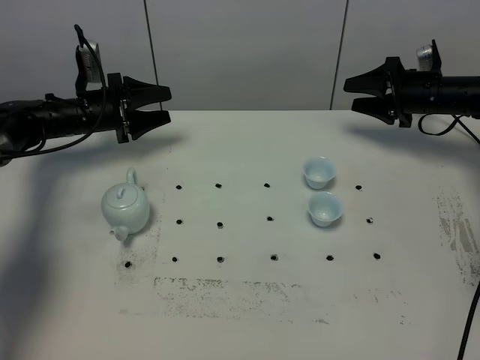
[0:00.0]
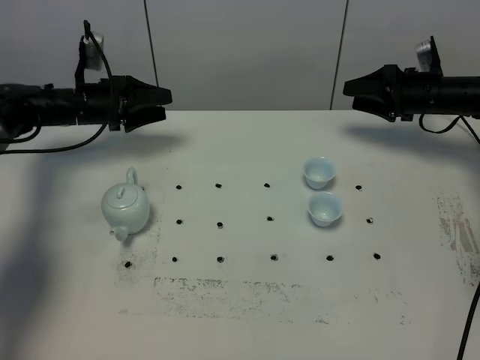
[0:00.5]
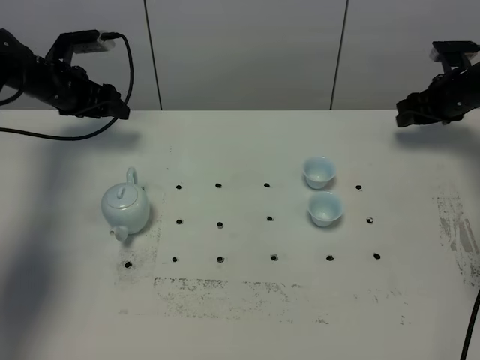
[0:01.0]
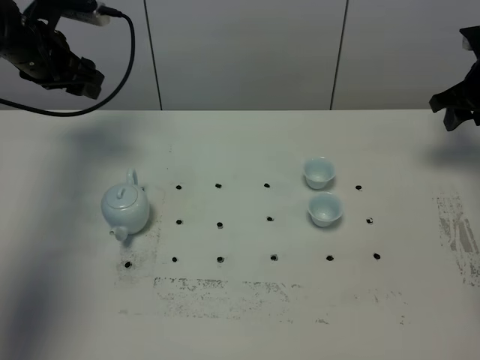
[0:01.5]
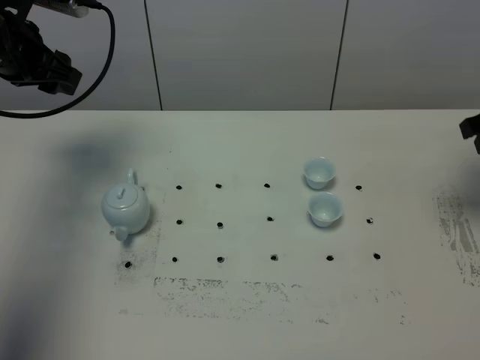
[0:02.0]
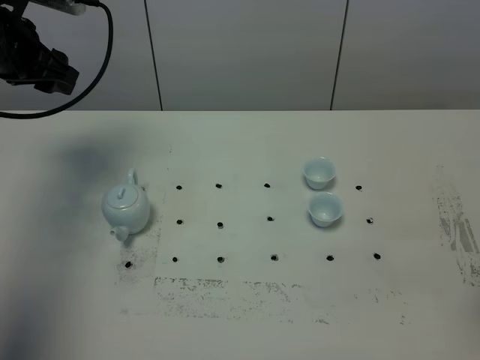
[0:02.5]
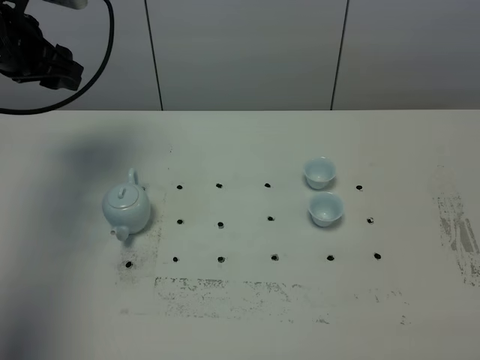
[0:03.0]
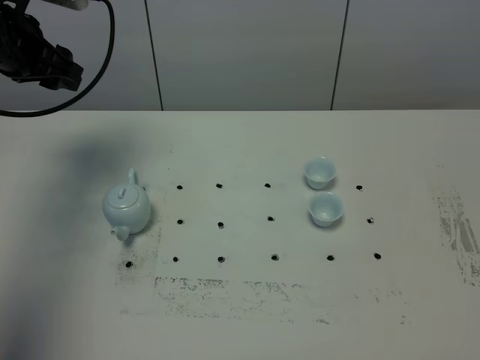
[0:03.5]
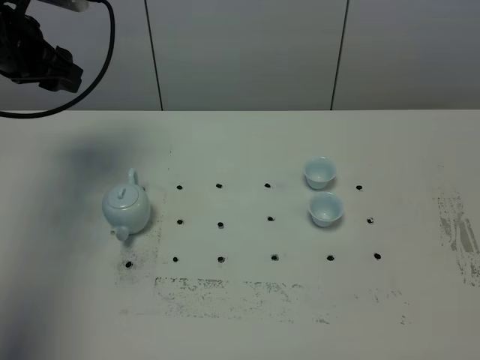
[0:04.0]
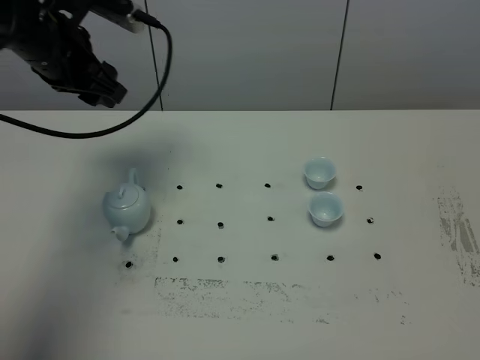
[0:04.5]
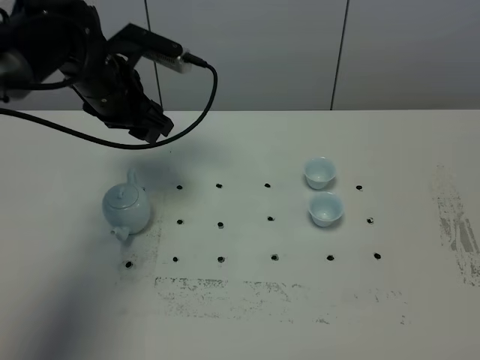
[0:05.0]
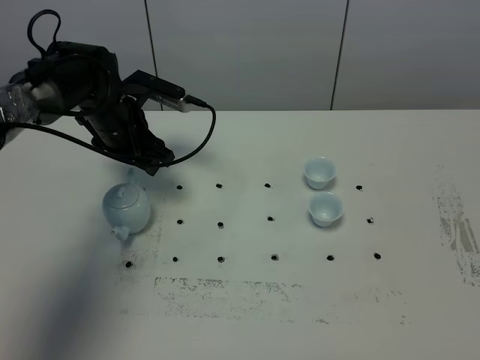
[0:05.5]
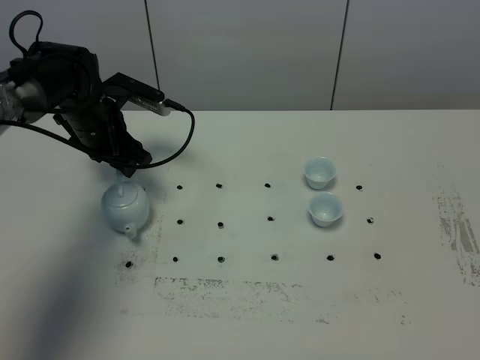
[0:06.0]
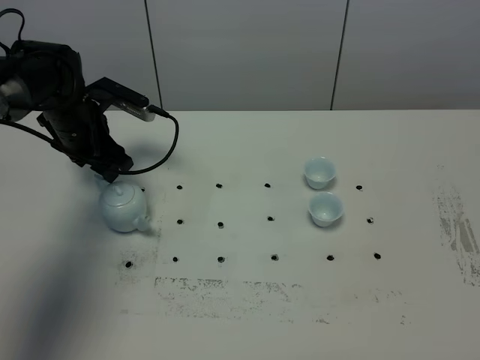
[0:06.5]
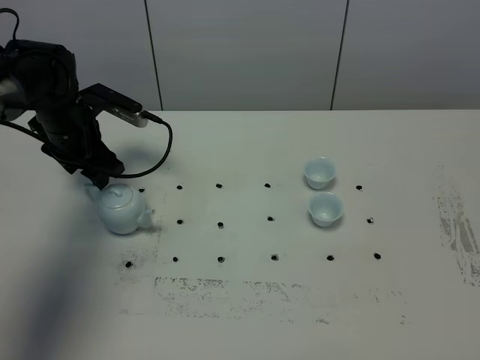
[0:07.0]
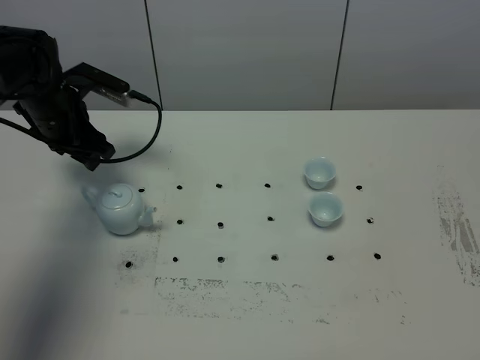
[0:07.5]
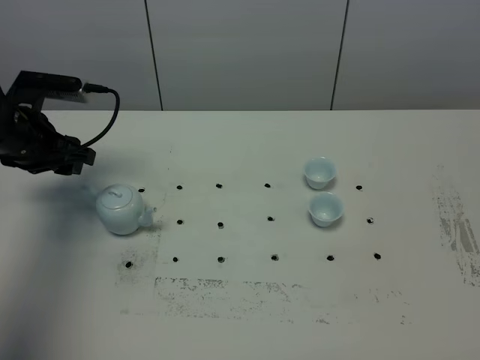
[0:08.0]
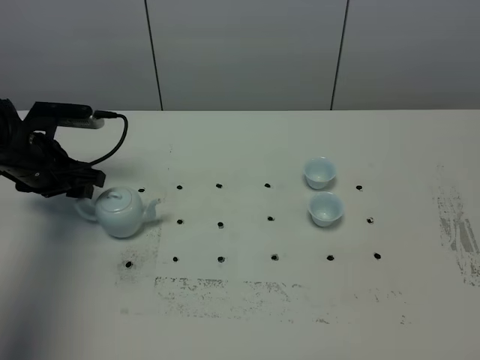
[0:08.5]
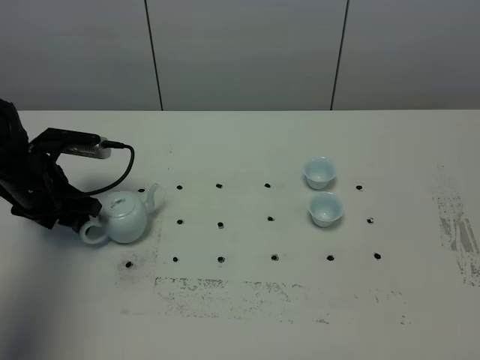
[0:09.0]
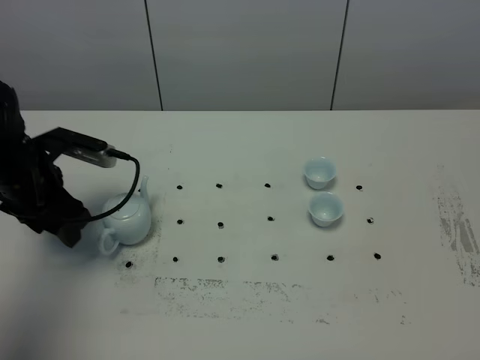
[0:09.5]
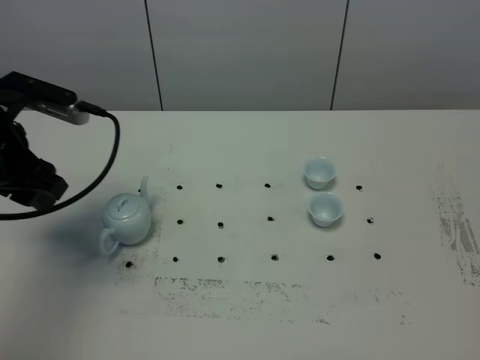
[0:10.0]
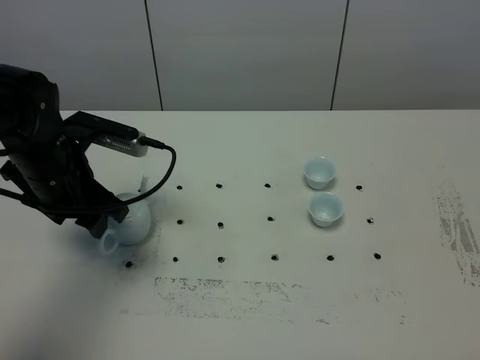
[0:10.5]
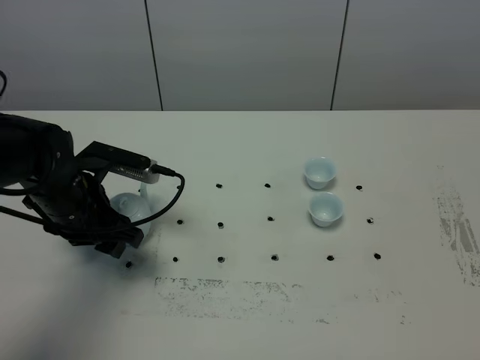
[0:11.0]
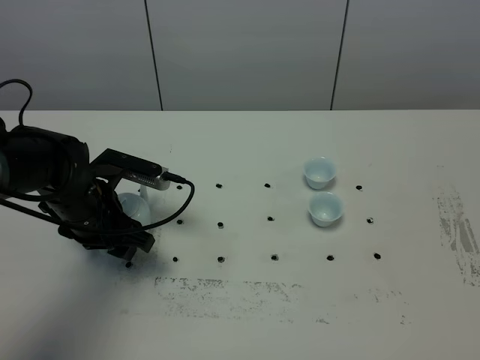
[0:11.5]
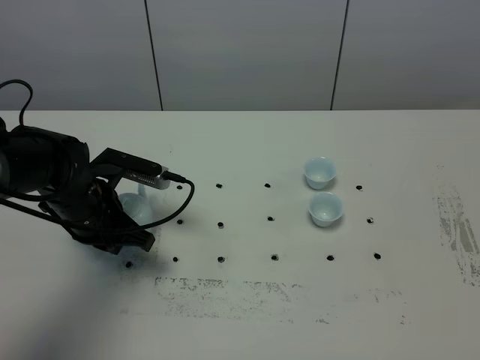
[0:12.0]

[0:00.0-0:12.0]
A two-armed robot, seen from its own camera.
Task of the whole recording: grasp the blue porcelain teapot and pour the tea into the two blue porcelain teacups one by one, put the blue porcelain teapot back in its original place.
0:00.0 to 0:02.0: The right gripper goes roughly 25 cm backward and upward, and closes its fingers, while the left gripper is displaced upward and backward by some 20 cm.
0:02.0 to 0:04.0: The right gripper goes approximately 40 cm backward, and closes.
0:04.0 to 0:06.0: The left gripper is displaced downward and to the right by approximately 15 cm.
0:06.0 to 0:08.0: The left gripper heads to the left and backward, covering approximately 10 cm.
0:08.0 to 0:10.0: The left gripper goes some 10 cm backward and upward.
0:10.0 to 0:12.0: The left gripper is displaced downward and to the right by about 15 cm, and closes.

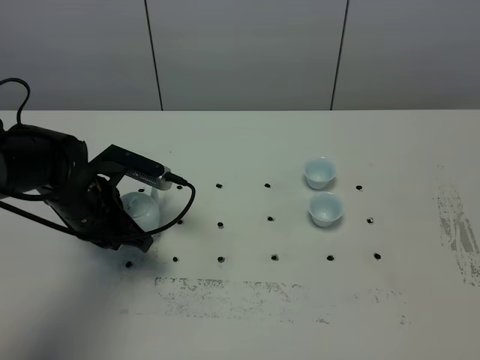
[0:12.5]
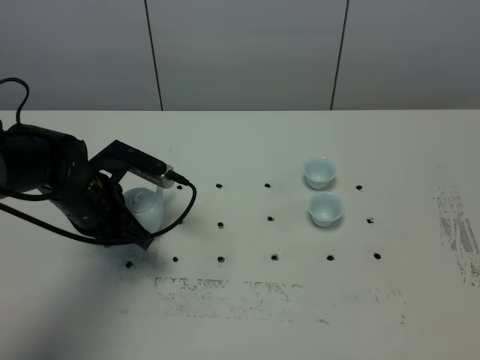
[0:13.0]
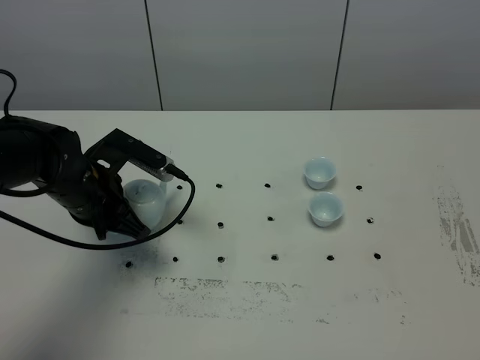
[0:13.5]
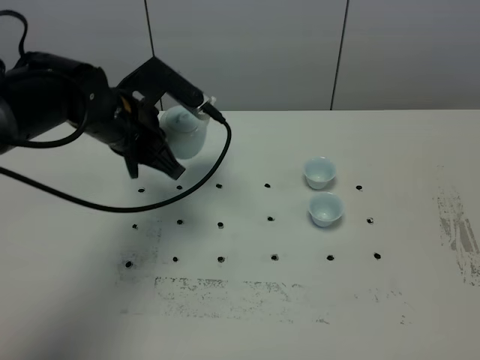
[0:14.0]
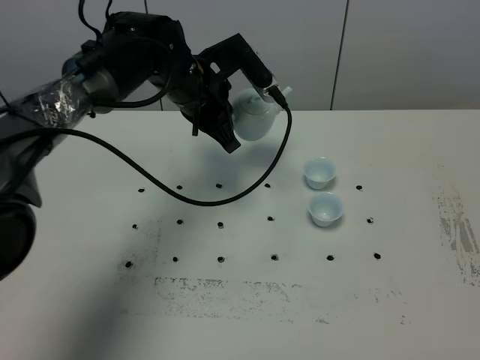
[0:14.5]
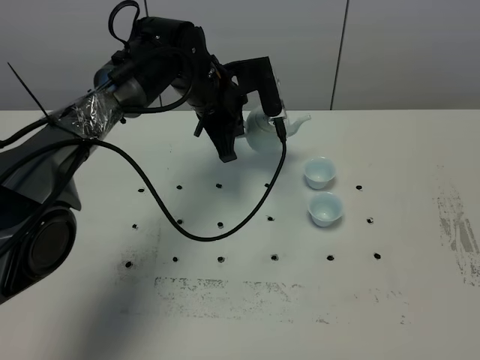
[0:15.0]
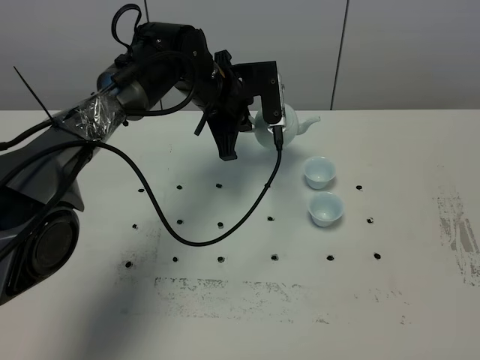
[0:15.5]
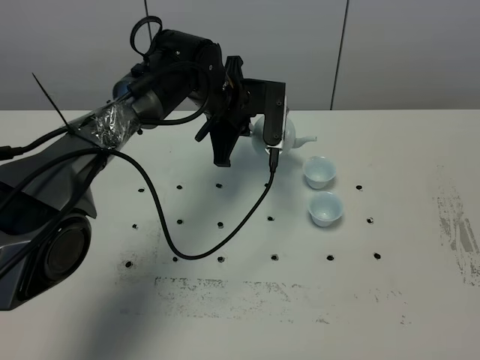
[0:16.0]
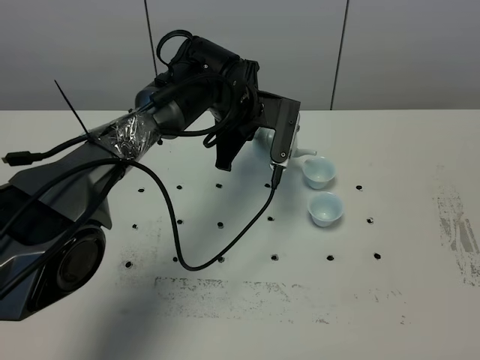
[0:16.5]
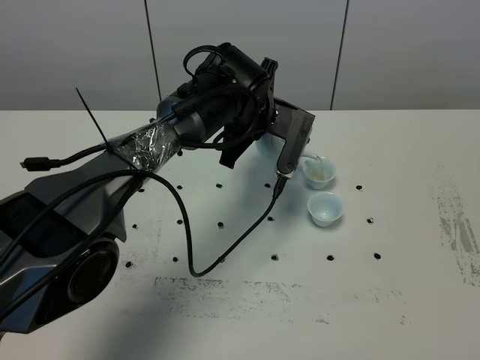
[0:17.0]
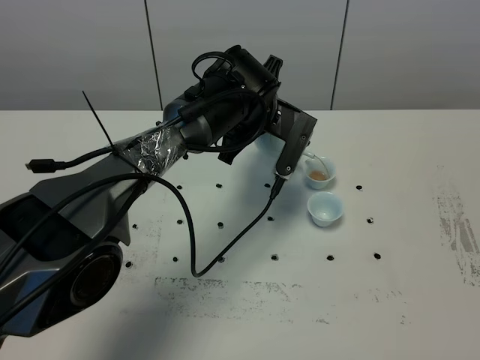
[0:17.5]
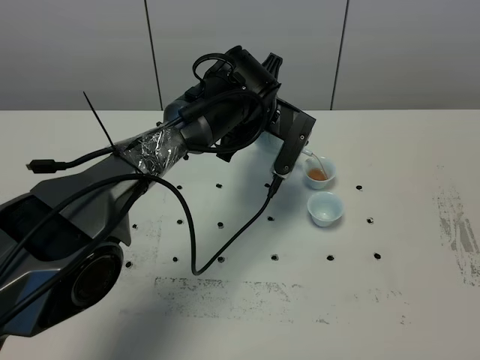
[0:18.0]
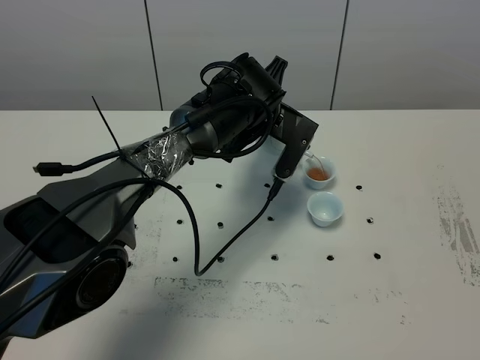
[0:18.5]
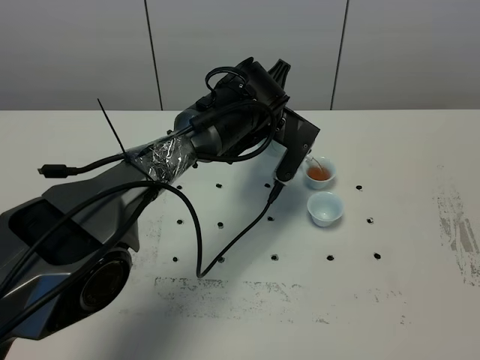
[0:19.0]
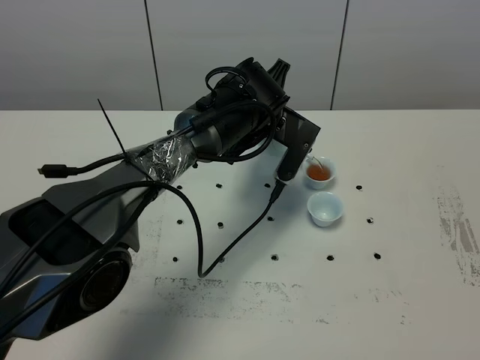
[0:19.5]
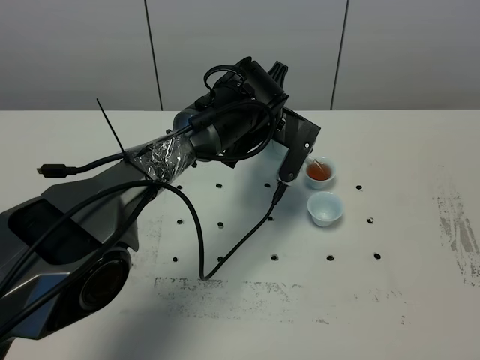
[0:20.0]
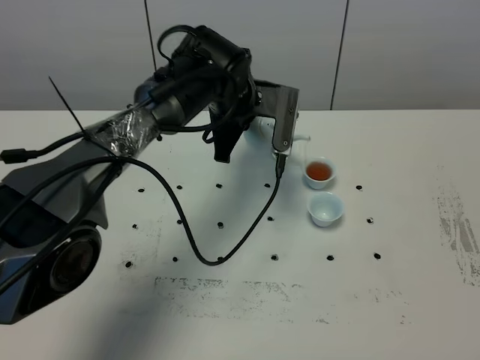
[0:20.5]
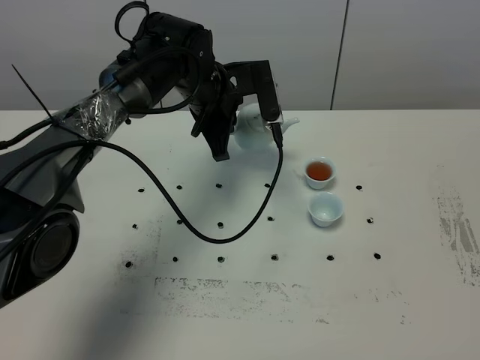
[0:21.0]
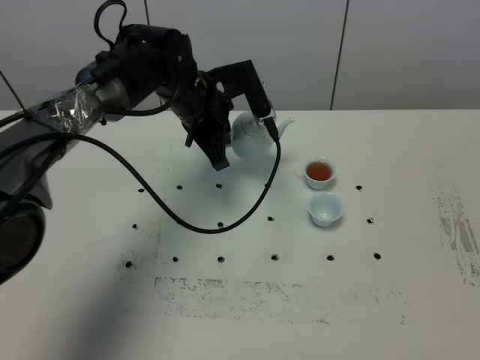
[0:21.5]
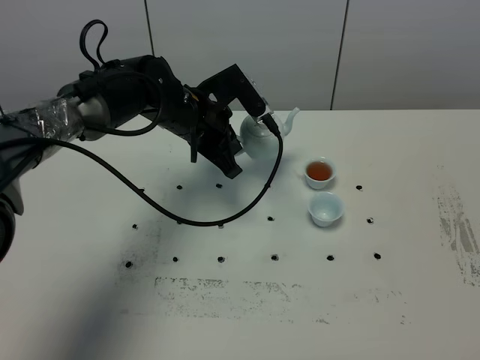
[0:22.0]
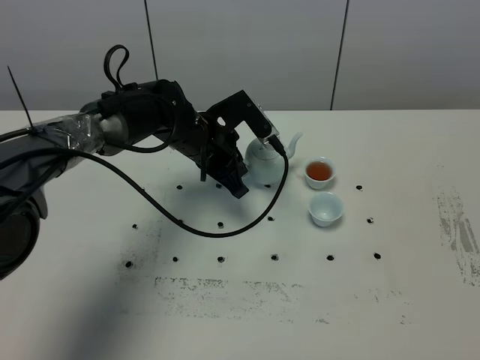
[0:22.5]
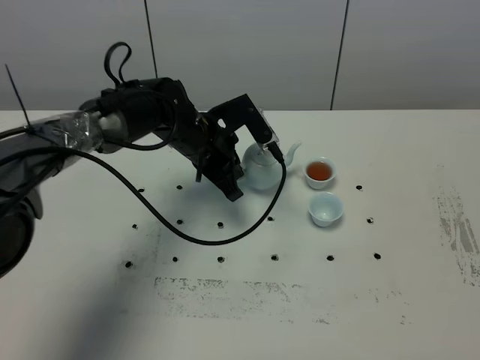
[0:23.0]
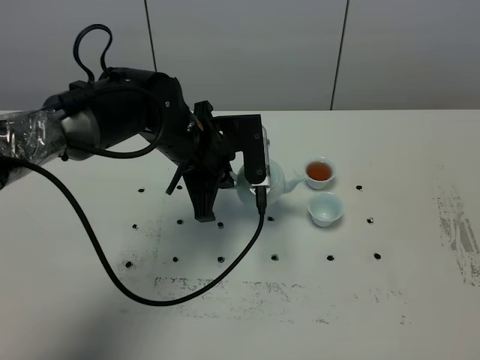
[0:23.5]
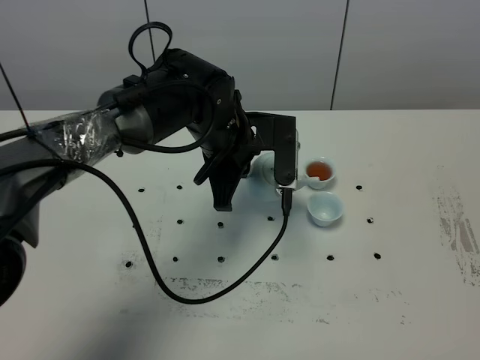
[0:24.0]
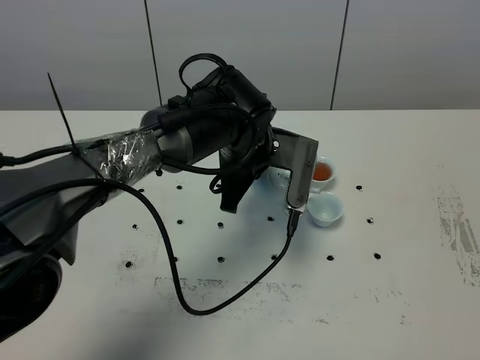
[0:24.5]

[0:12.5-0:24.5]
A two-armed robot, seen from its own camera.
Task of the whole recording: grasp the blue porcelain teapot and pour the tea into the two blue porcelain teacups one by one, put the blue porcelain teapot back in its original place.
Step, 0:14.0 to 0:20.5: Pour tea into the teacup with the left gripper.
0:12.5 to 0:14.5: The left gripper heads to the right, forward and upward, covering some 20 cm.
0:14.5 to 0:16.5: The left gripper heads to the right, covering approximately 5 cm.
0:20.5 to 0:22.5: The left gripper heads downward, covering approximately 5 cm.
0:22.5 to 0:24.5: The left gripper moves to the right, backward and upward, roughly 10 cm.

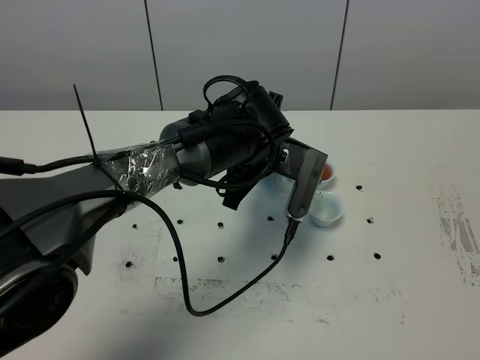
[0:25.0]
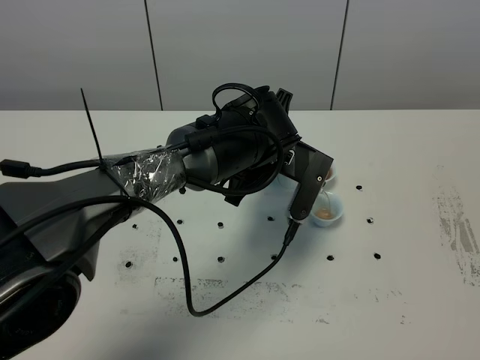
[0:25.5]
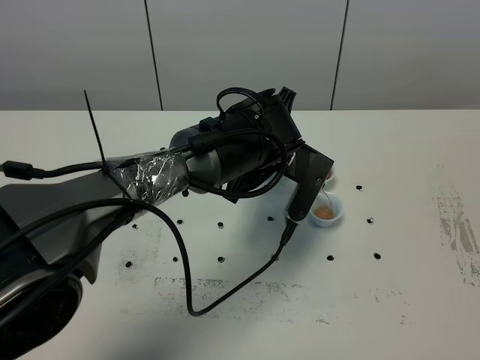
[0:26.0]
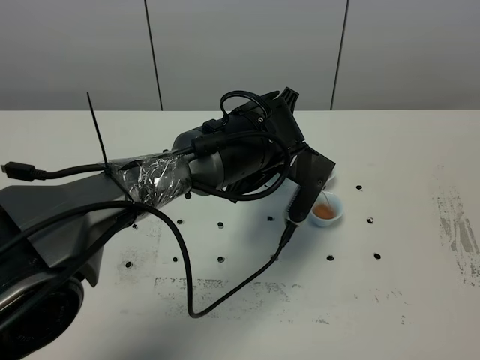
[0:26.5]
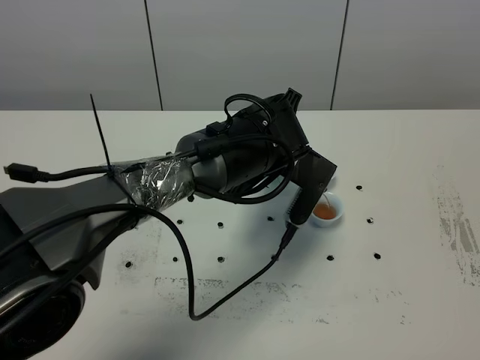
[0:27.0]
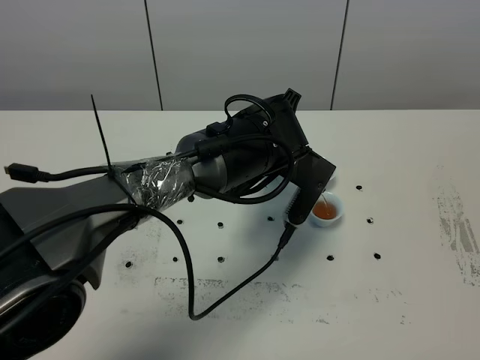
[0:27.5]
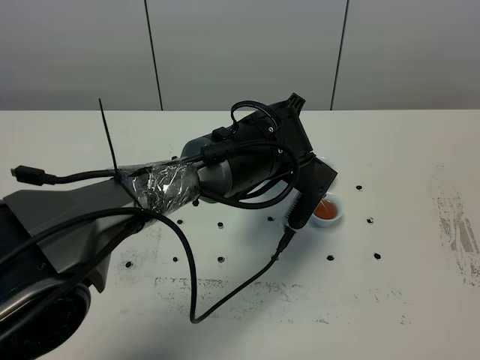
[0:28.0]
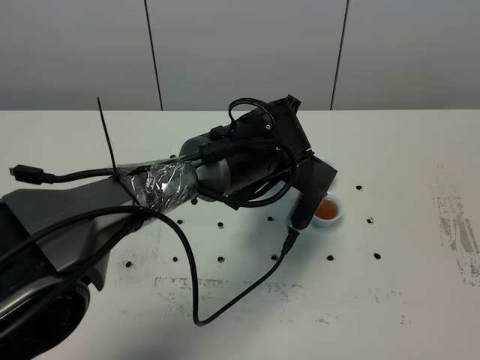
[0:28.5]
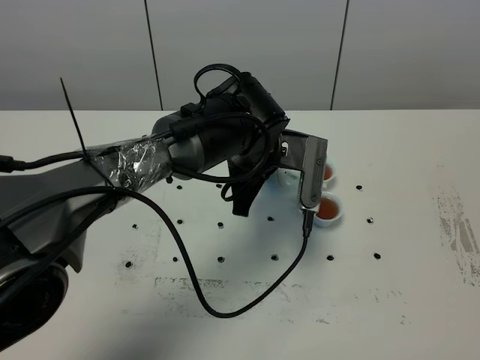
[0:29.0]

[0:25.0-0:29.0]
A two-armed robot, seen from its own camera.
Task of the whole recording: grasp the blue porcelain teapot and pour the tea into the two blue porcelain teacups one by one, put the blue porcelain teapot back in its original place.
0:25.0 to 0:27.0: The grippers stay close to where they were, moving slightly.
